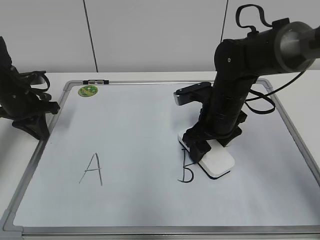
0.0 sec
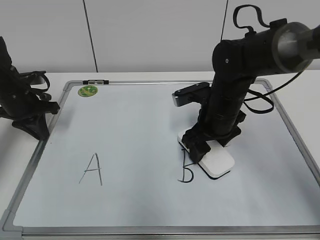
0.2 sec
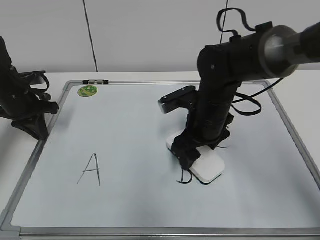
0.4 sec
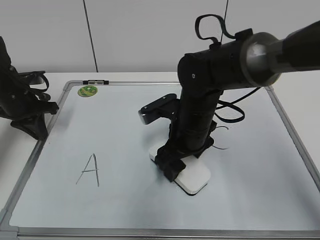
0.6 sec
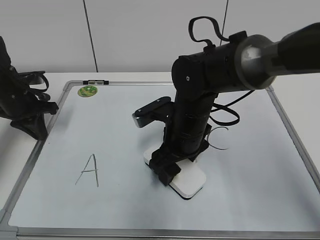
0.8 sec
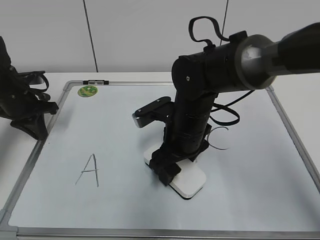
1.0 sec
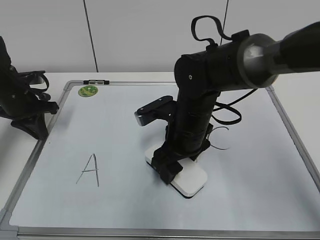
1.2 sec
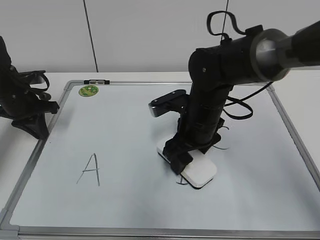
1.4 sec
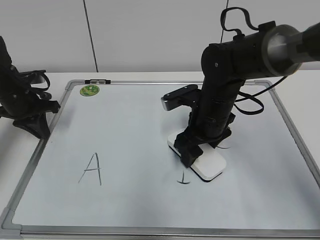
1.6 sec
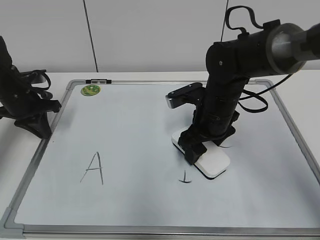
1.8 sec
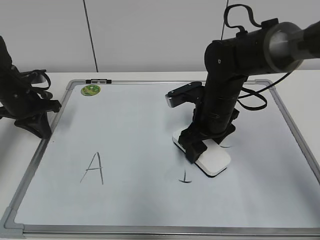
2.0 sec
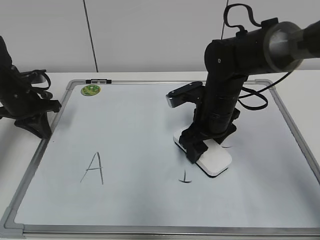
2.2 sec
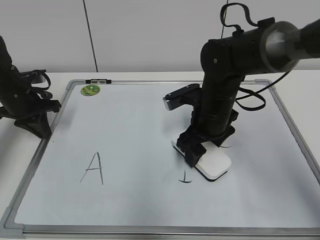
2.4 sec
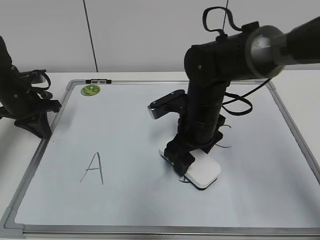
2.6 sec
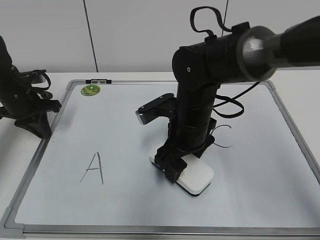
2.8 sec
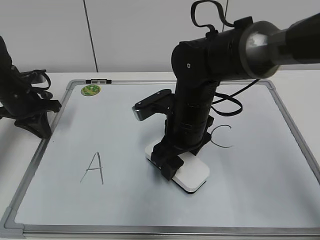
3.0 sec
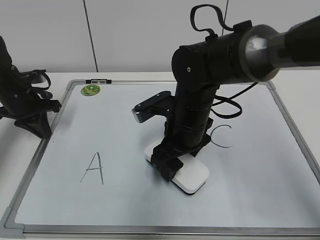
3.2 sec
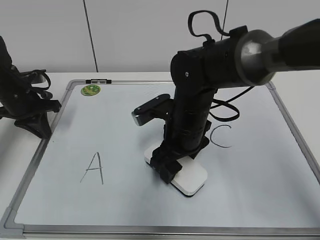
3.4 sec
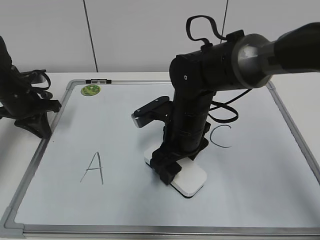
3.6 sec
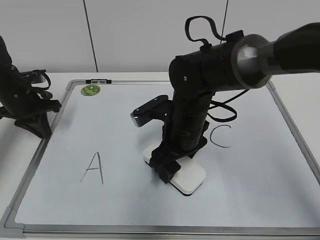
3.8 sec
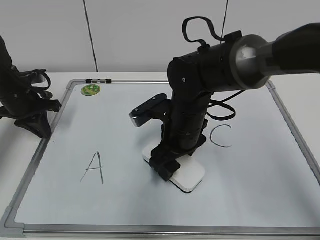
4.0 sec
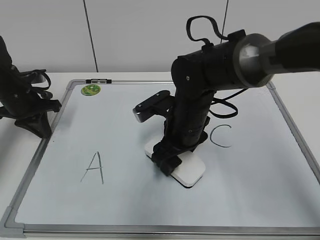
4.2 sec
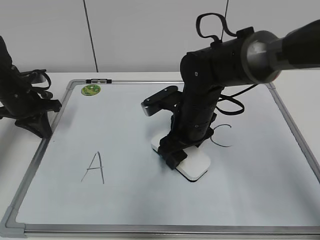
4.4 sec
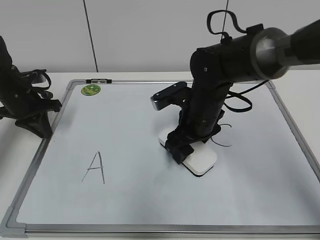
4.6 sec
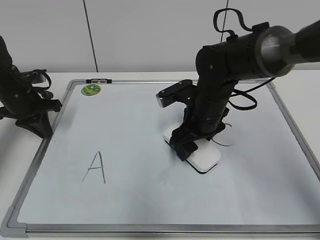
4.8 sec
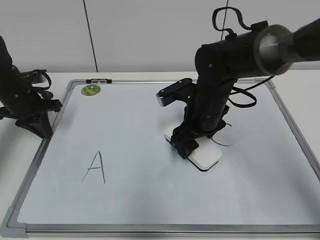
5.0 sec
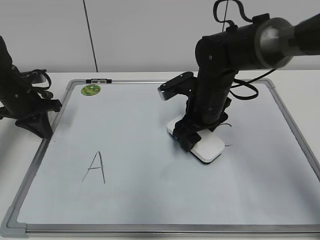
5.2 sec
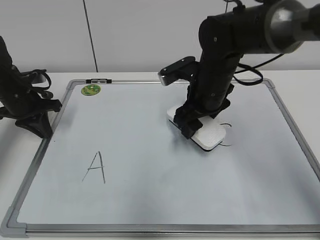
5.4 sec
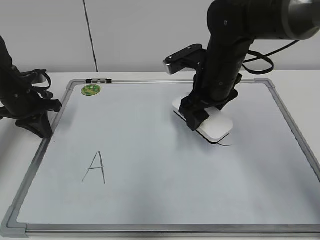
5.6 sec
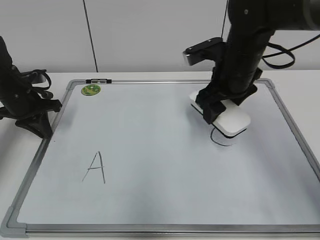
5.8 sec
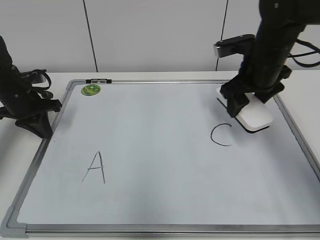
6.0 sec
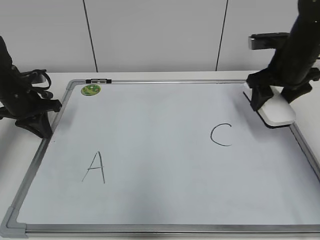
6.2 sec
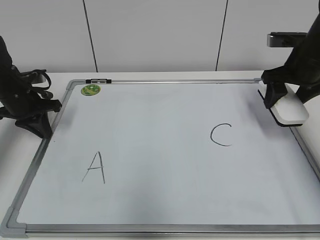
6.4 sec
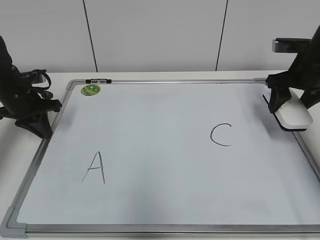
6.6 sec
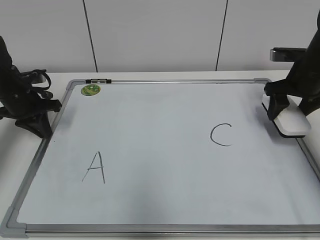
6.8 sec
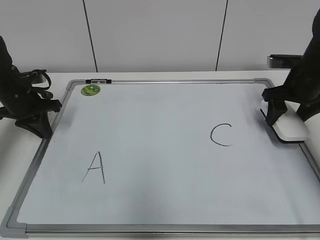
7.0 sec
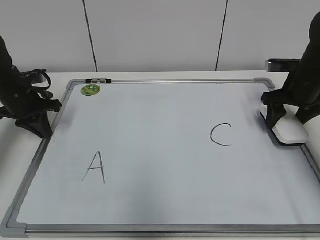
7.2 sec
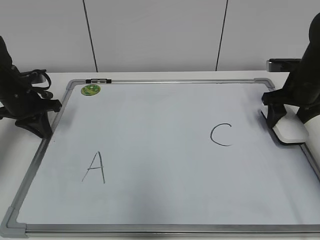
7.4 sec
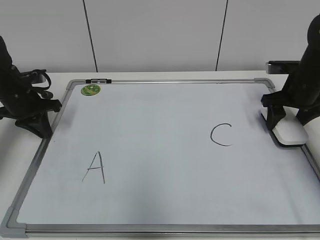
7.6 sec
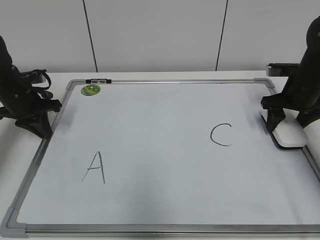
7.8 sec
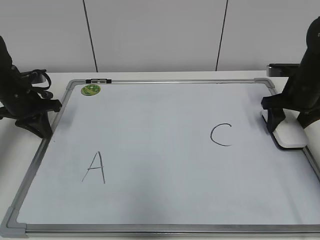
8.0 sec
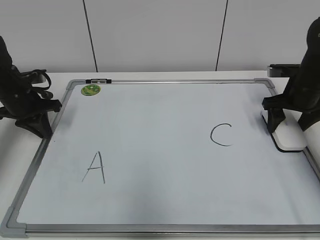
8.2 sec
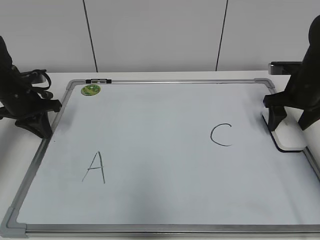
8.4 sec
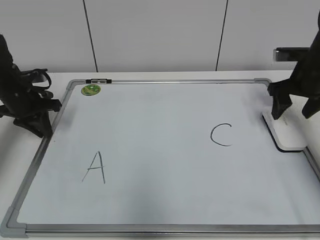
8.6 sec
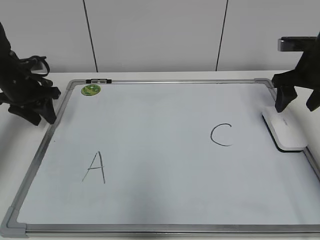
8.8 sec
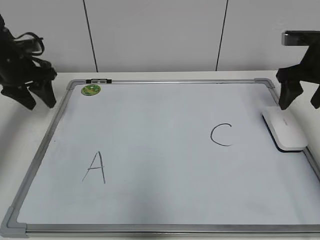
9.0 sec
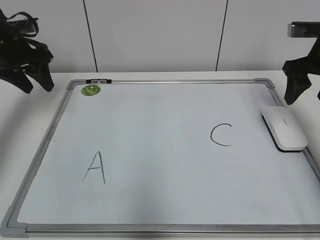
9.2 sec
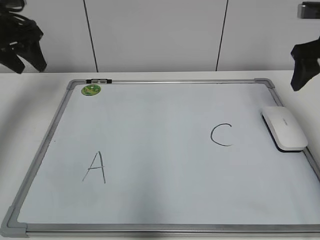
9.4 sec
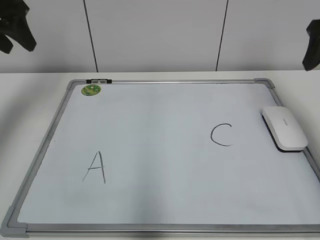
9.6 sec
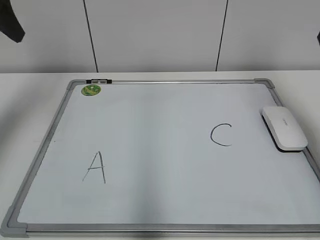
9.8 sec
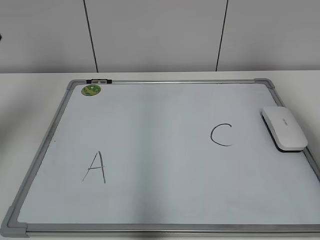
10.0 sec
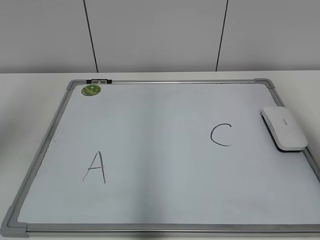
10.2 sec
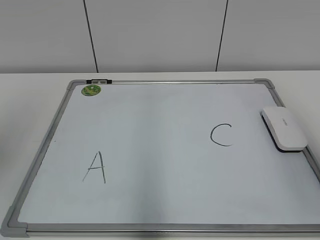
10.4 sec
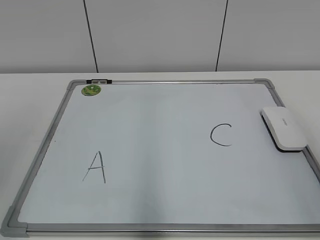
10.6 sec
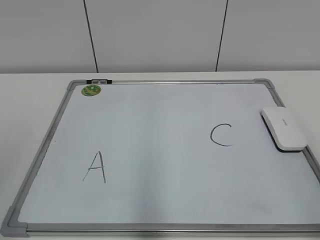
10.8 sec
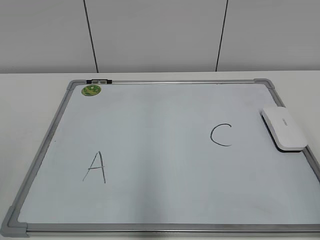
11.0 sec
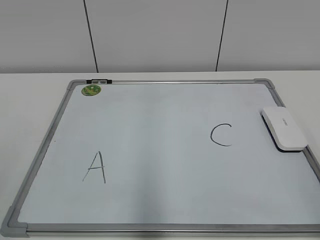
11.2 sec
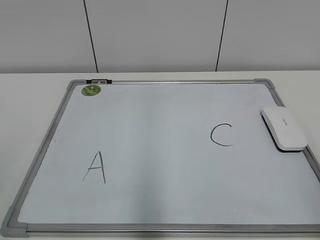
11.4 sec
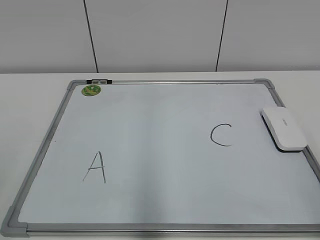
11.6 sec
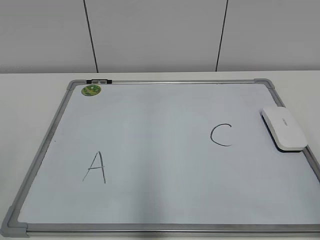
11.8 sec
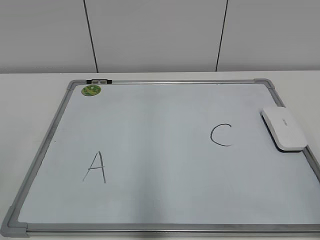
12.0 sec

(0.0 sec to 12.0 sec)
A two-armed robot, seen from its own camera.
Task of the whole recording: pick up the eraser on the blackboard and erase the letter "B".
Step, 0.0 sec - 4.8 sec: Erase the letter B with your right hand.
Step, 5.0 sec - 8.2 sec: Put down the eraser with your right hand.
1.6 sec - 3.0 sec: The right gripper ends up approximately 5 cm from where it was.
3.0 sec - 4.4 sec: The grippers make only small movements.
4.4 sec - 6.0 sec: The right gripper travels to the right and upward by roughly 15 cm.
6.0 sec - 7.6 sec: The right gripper is displaced to the right and downward by roughly 15 cm.
7.6 sec - 9.0 sec: Both grippers travel together upward, roughly 5 cm. The left gripper opens up; the right gripper opens.
9.0 sec - 10.4 sec: Both grippers travel together backward and upward, some 30 cm.

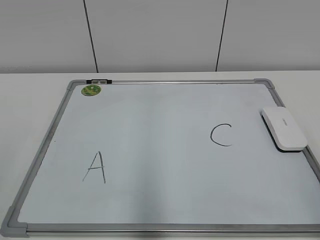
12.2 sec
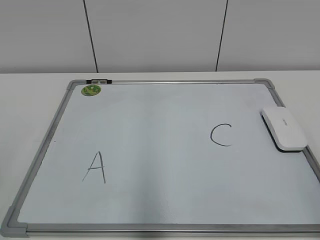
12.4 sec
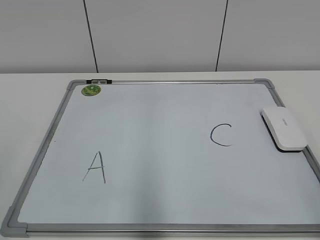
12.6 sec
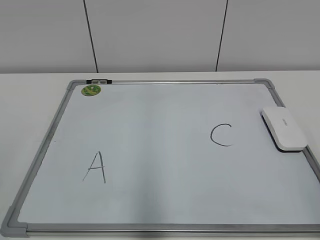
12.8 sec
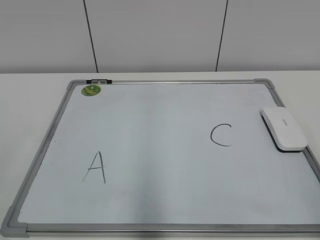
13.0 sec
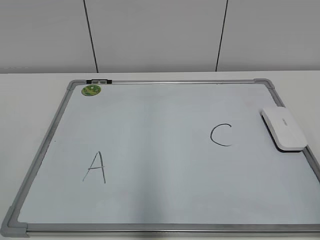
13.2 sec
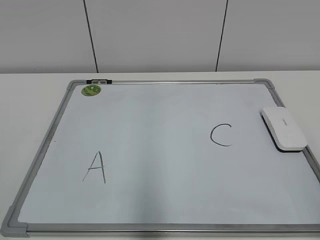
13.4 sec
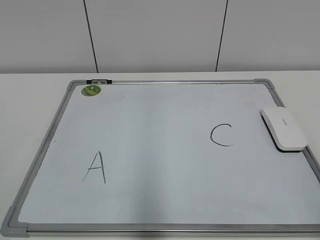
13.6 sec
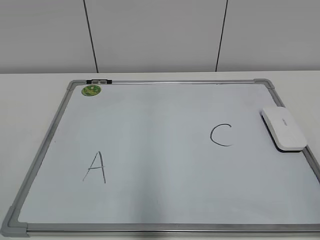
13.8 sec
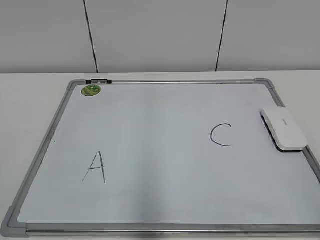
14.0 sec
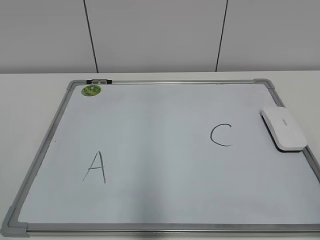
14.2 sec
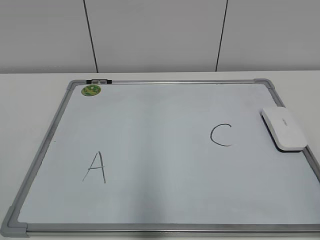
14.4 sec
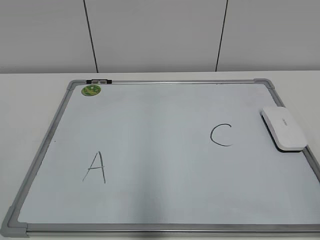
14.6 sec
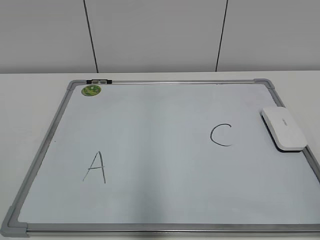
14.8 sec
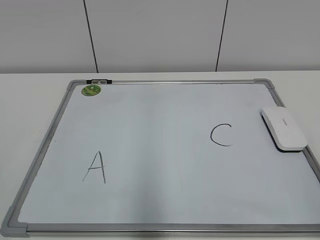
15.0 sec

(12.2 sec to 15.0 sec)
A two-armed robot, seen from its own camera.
Task of the whole recording: pick up the eraser on the blackboard and erase the letter "B".
13.6 sec - 15.0 sec: Neither gripper changes place.

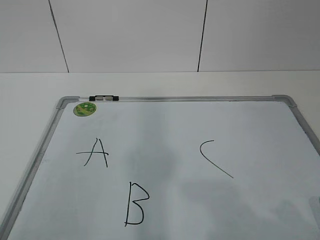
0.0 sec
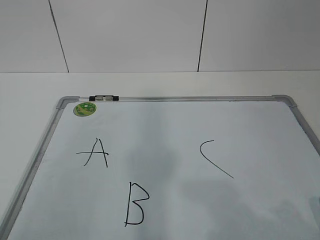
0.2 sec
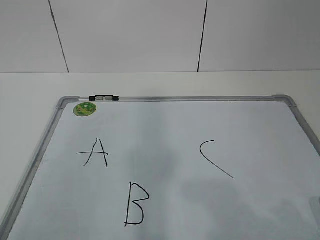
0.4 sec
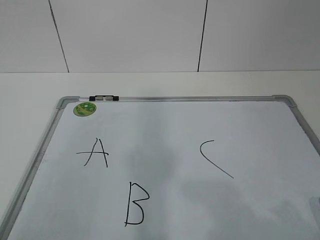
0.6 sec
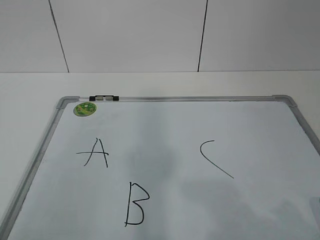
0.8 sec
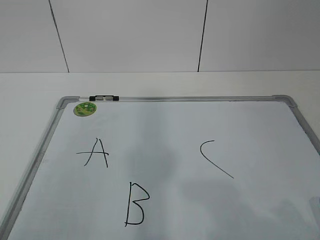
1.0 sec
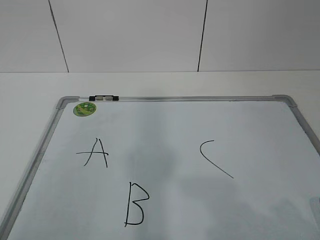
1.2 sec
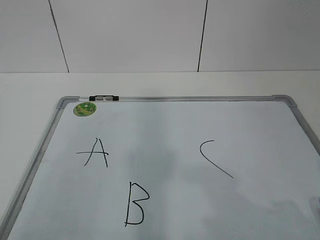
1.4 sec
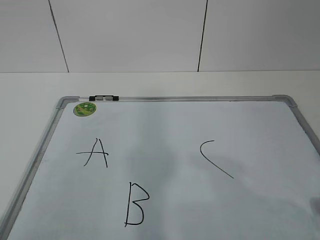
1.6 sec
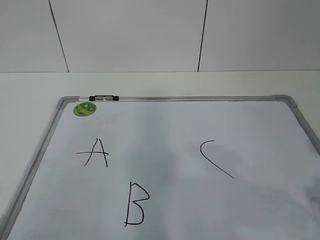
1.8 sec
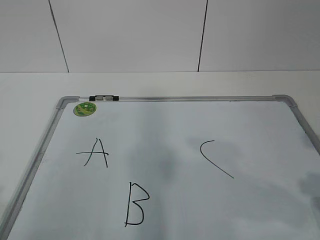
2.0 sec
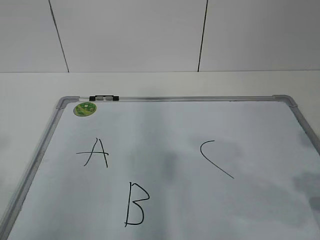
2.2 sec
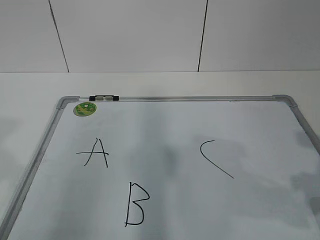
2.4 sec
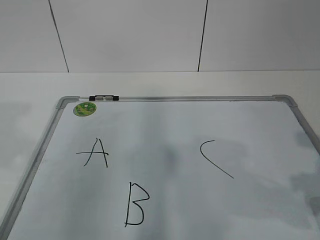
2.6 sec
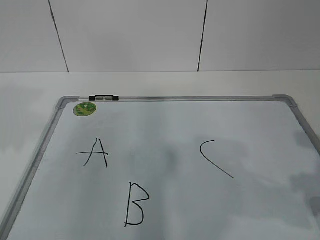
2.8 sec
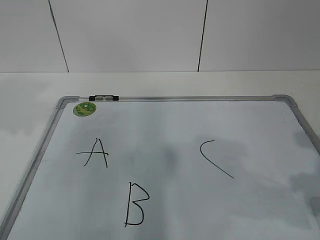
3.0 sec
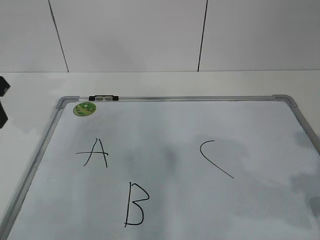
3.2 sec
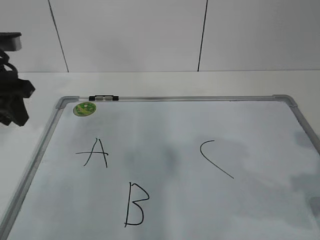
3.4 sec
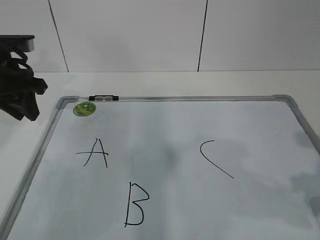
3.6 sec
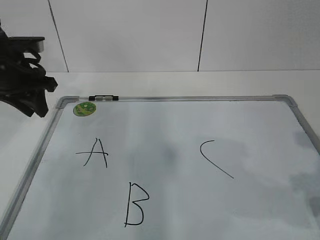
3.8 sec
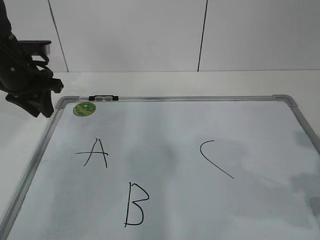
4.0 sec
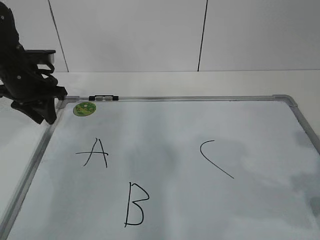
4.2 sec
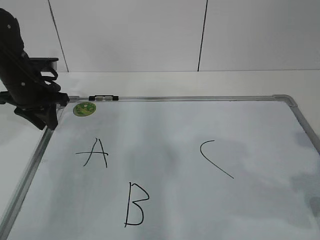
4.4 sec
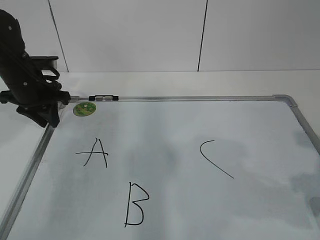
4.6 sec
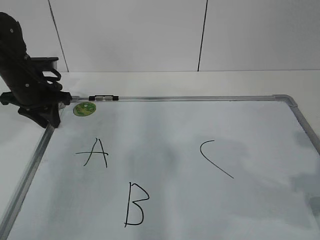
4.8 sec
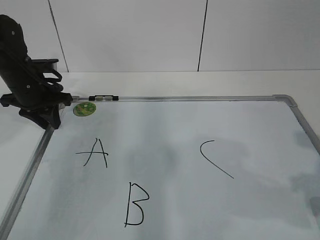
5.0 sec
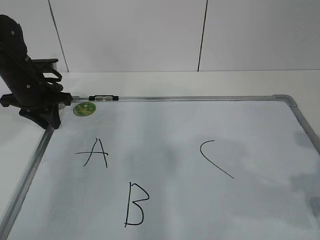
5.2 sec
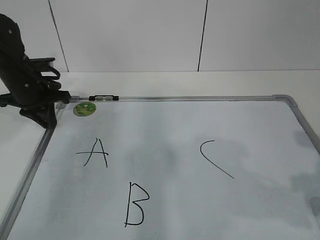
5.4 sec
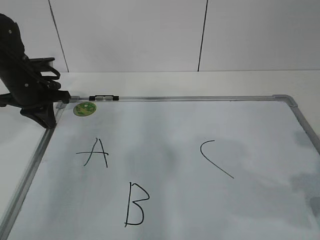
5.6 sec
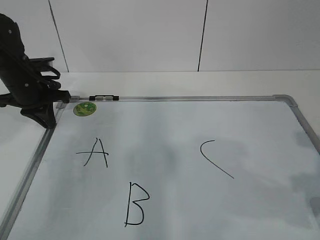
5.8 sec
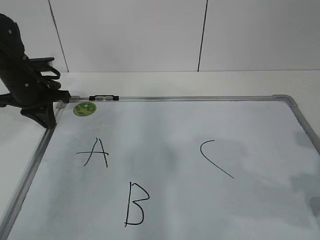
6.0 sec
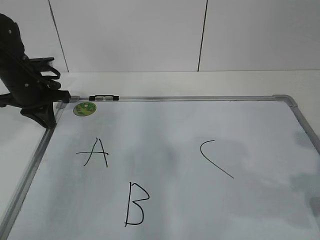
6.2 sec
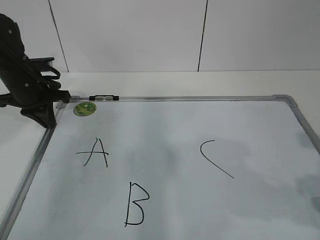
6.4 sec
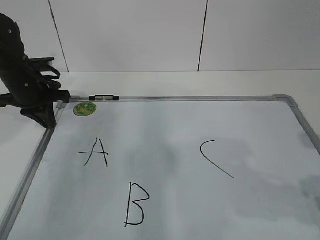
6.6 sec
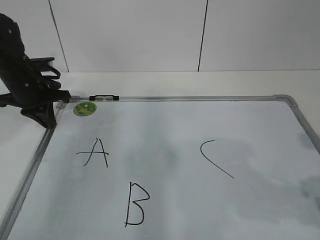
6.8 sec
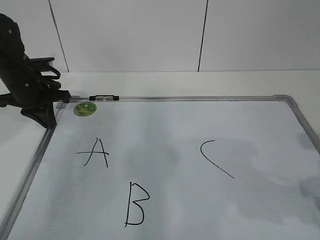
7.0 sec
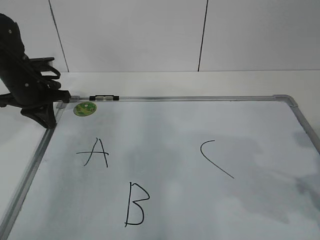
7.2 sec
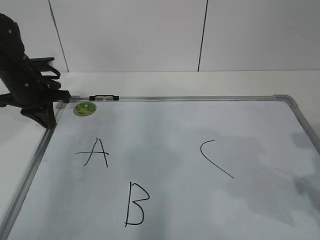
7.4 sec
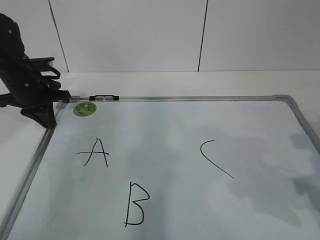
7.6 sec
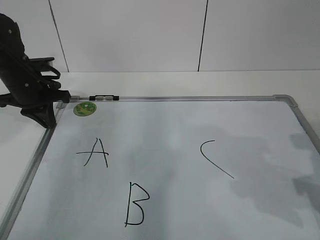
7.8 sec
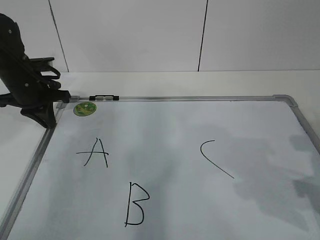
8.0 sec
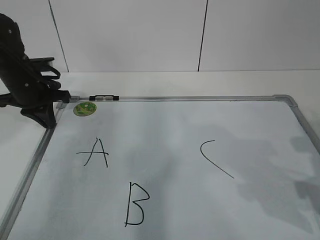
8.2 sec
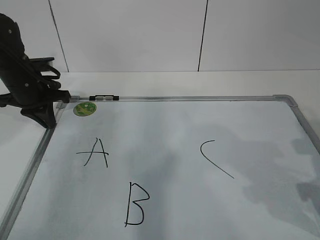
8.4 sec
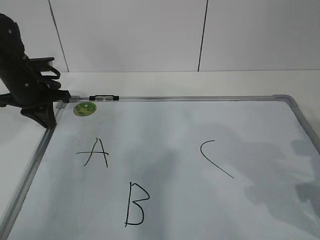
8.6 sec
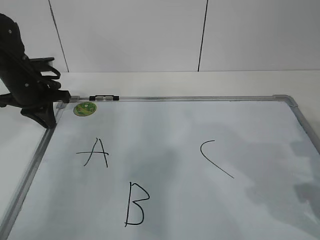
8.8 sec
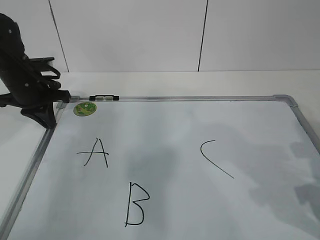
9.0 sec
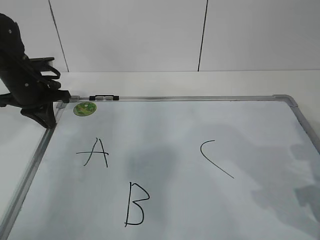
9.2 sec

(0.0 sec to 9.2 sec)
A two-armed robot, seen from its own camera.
Task of the whole recording: pick up the eraser on the blackboard and erase the letter "B".
Step, 0.0 sec - 4.4 sec: Hold the drawing board steady with your left hand.
Step, 4.6 sec - 8.0 sec: Grab the eraser with your right hand.
1.6 sec - 3.0 sec: The left gripper travels forward by some 25 cm, while the right gripper goes roughly 5 cm forward.
3.0 sec - 4.6 sec: The left gripper is displaced forward and downward by some 20 cm.
4.6 sec - 6.2 sec: The left gripper closes up.
7.6 sec - 9.2 sec: The right gripper ends up roughly 5 cm from where it was.
